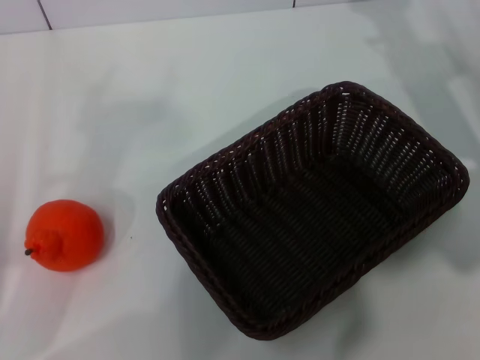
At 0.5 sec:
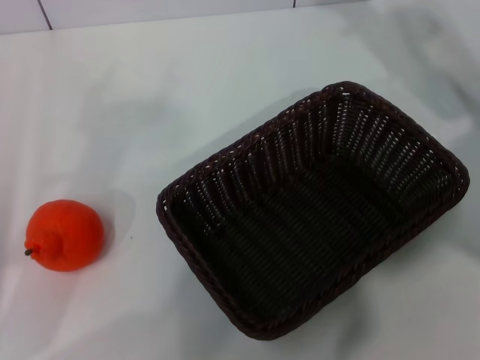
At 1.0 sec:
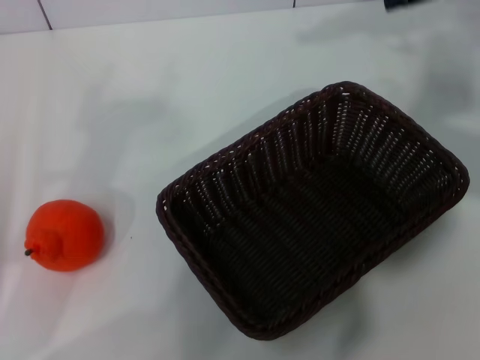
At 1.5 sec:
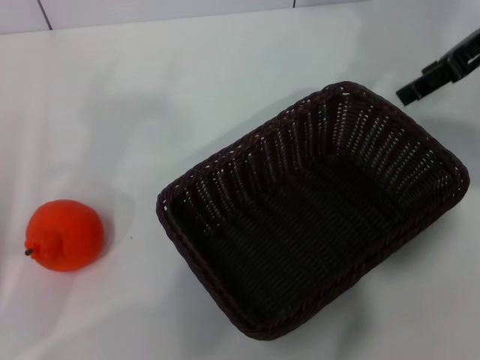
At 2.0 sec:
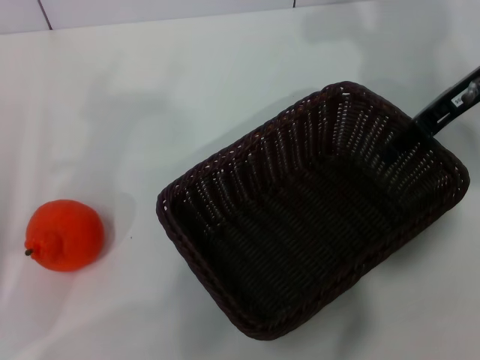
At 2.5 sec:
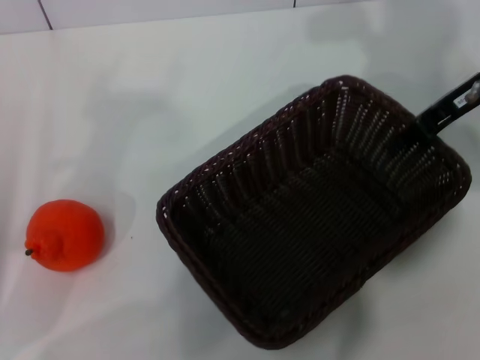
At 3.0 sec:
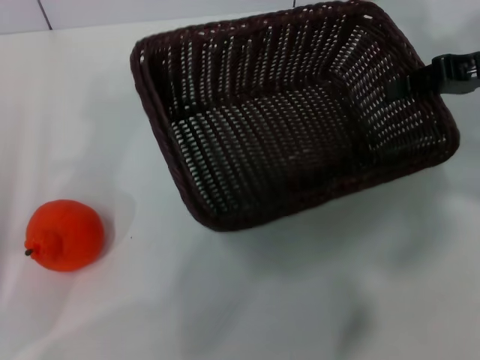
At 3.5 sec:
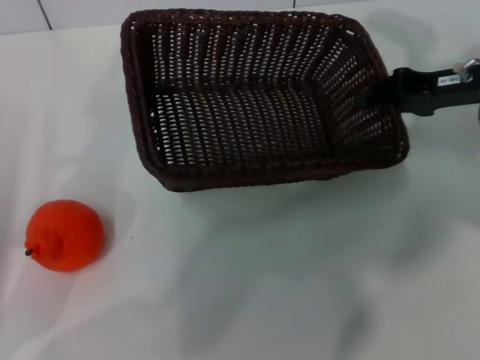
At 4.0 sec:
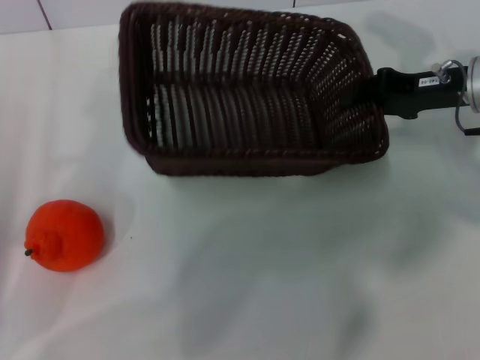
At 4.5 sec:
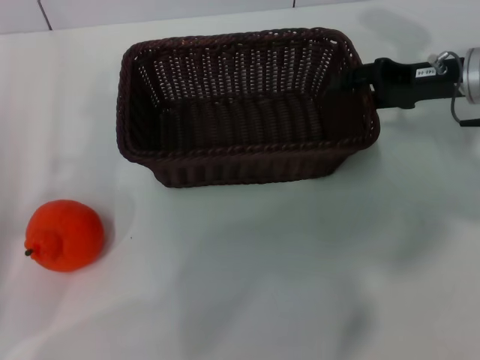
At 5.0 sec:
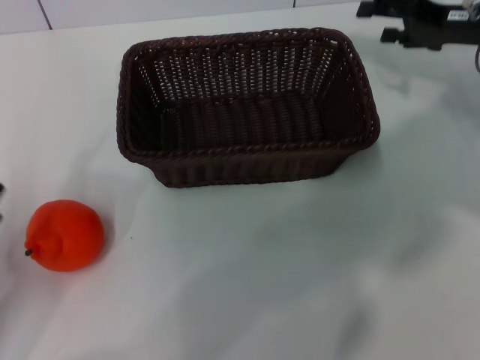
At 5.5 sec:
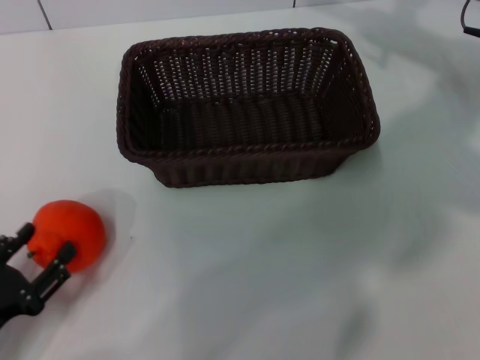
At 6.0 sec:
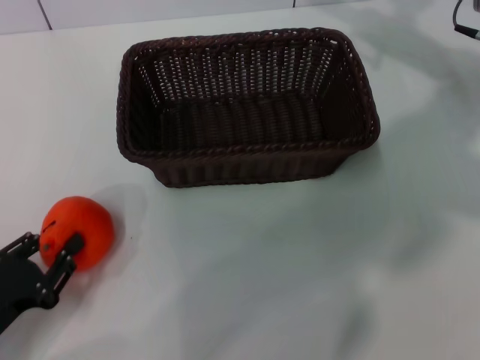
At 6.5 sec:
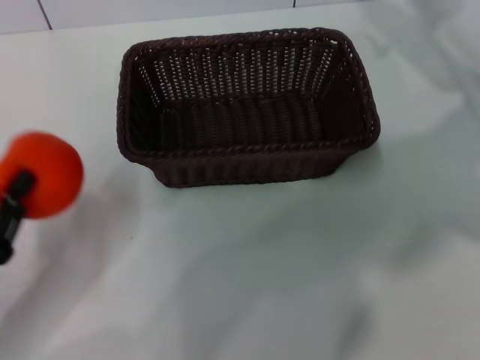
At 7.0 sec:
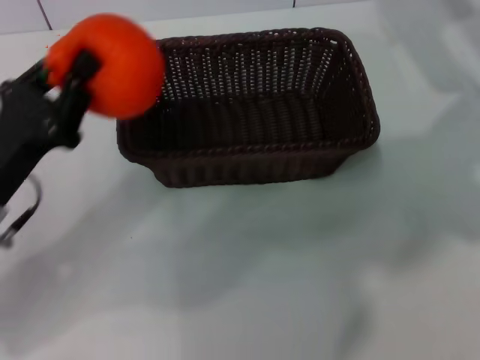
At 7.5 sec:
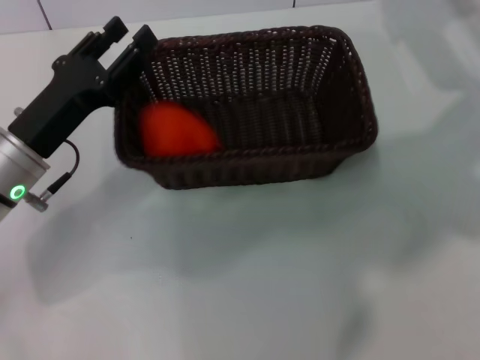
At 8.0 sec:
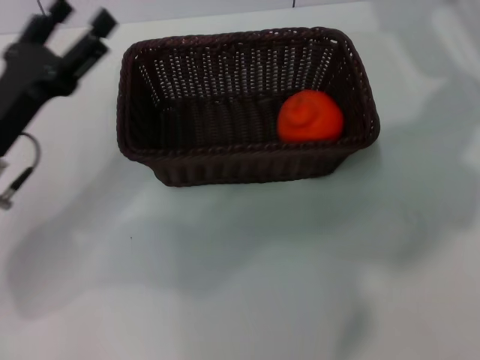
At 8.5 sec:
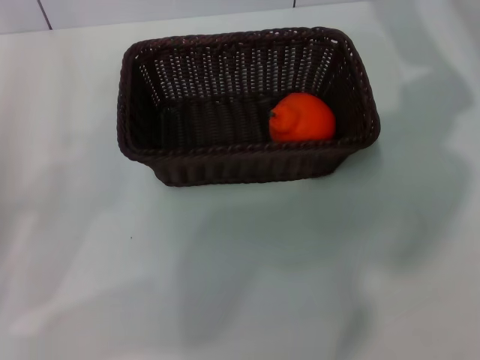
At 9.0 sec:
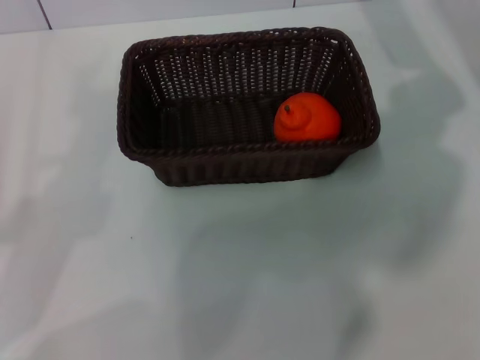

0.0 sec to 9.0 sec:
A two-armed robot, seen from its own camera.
Task of the whole recording: the right gripper pick up the black basket and place it horizontally in the middle of the table, the left gripper pick up the orange and place it into the black basket.
Step, 0.0 sec to 2.5 sec: Pick up the dark basket with the right gripper.
Step, 3.0 sec to 4.5 sec: Place the dark basket in the center of view with the right gripper.
Step, 5.0 sec to 6.5 sec: Pick up the orange with the left gripper.
Step, 7.0 sec to 7.5 sec: Place the orange into the dark basket with the left gripper.
0.0 sec to 2.0 sec: The right gripper is displaced upward by roughly 5 cm.
2.0 sec to 4.5 sec: The right gripper travels downward by approximately 5 cm, and closes, then reopens.
4.5 sec to 7.0 sec: The right gripper ends up about 5 cm from where it was, and opens. Meanwhile the left gripper is displaced to the right by approximately 5 cm, and closes its fingers.
7.0 sec to 9.0 sec: The left gripper shifts some 10 cm to the left and backward, and opens its fingers.
